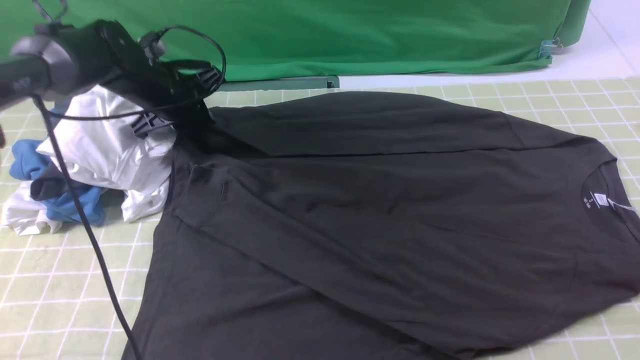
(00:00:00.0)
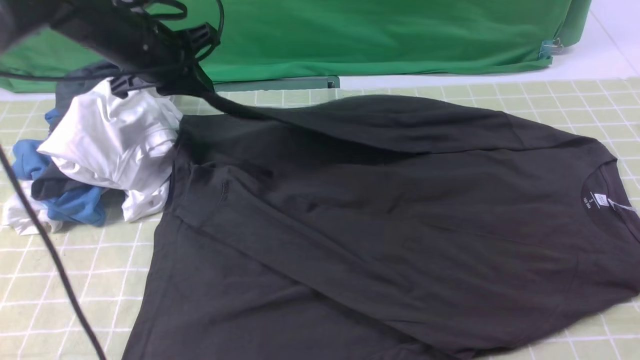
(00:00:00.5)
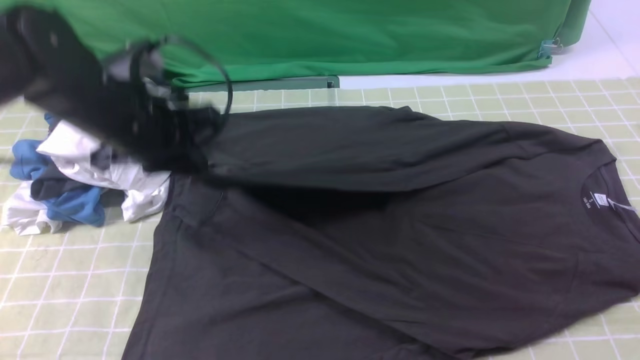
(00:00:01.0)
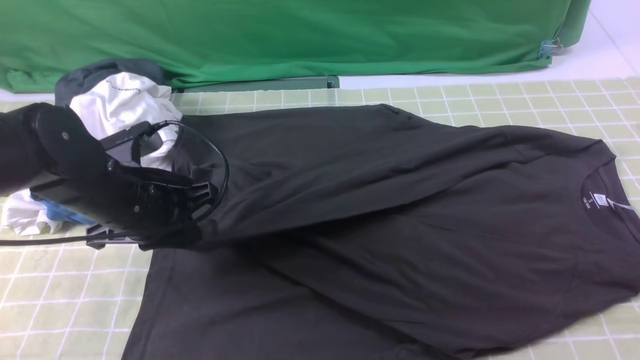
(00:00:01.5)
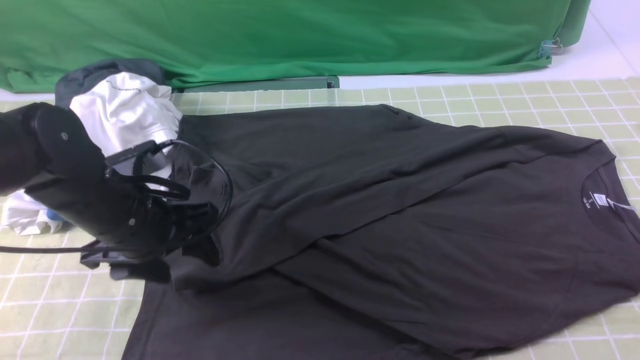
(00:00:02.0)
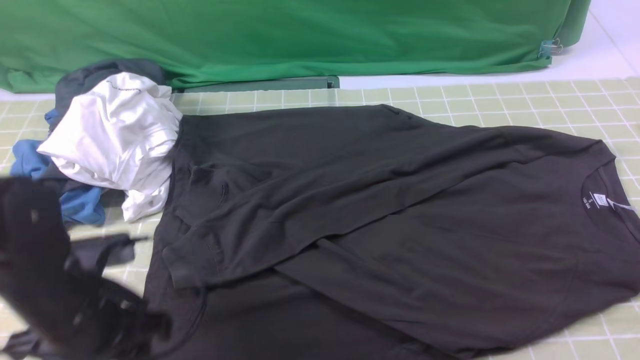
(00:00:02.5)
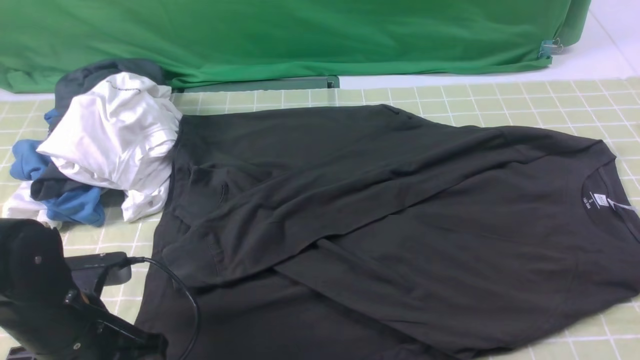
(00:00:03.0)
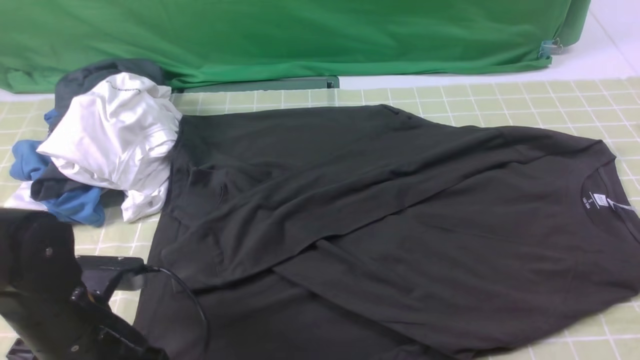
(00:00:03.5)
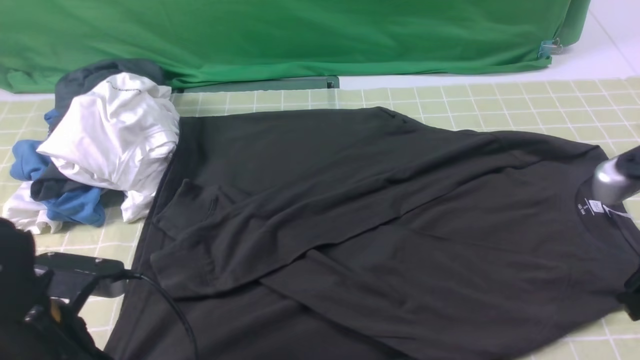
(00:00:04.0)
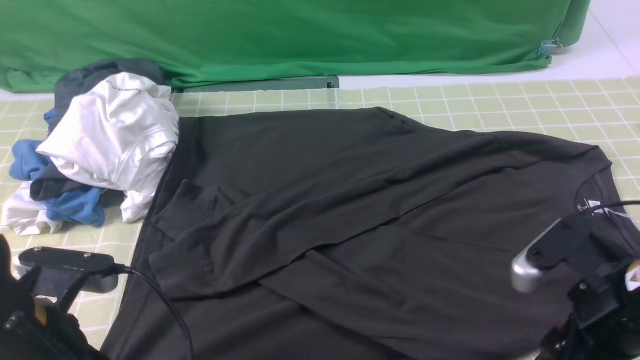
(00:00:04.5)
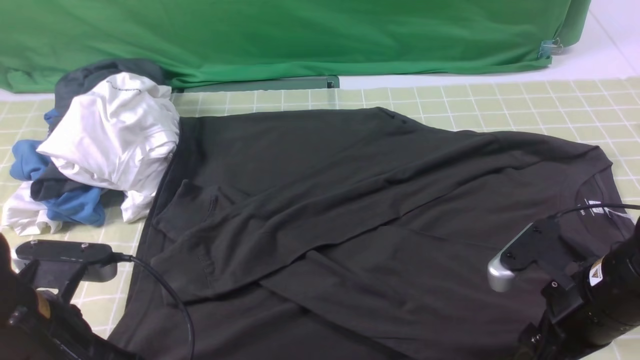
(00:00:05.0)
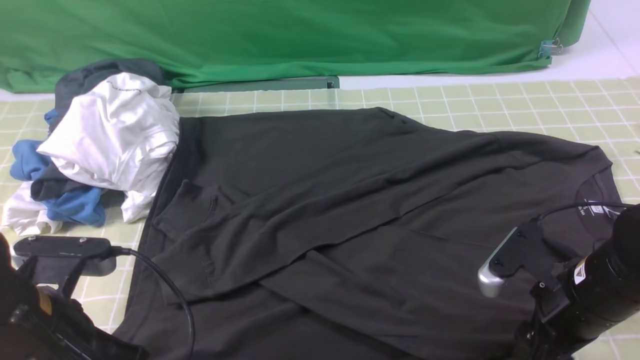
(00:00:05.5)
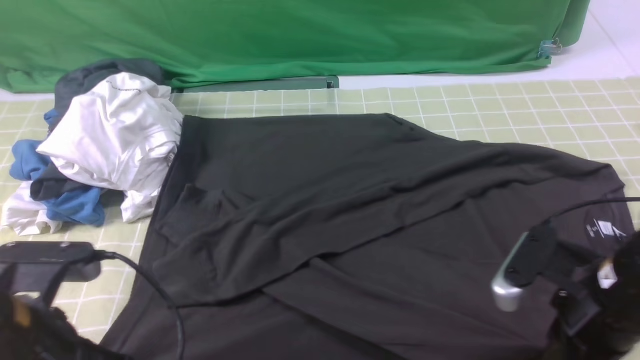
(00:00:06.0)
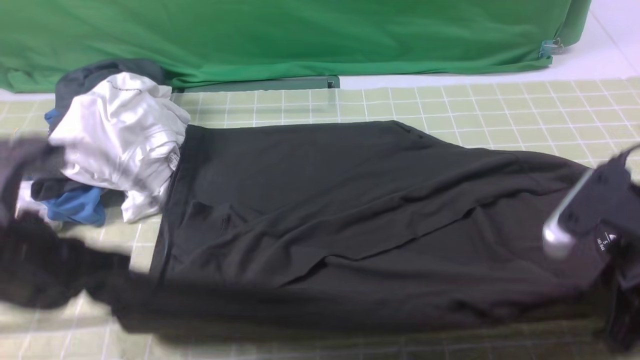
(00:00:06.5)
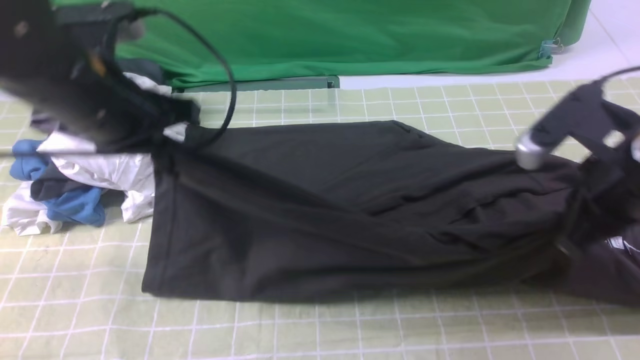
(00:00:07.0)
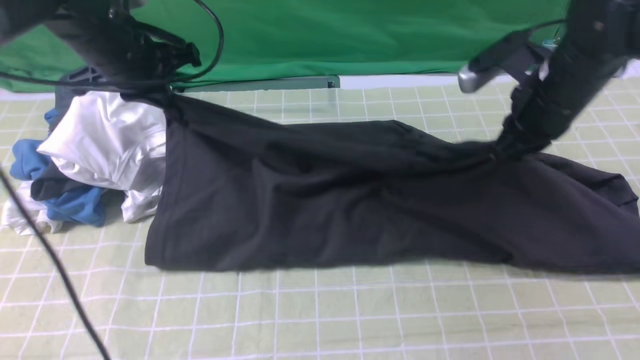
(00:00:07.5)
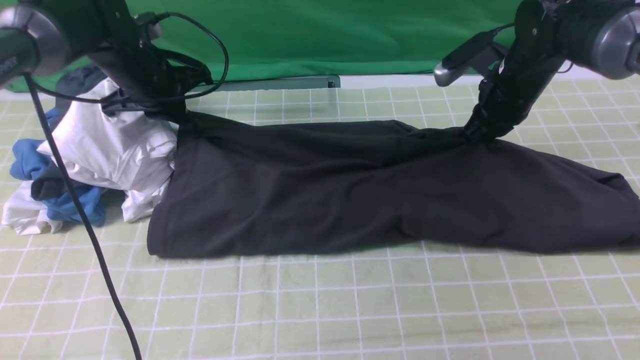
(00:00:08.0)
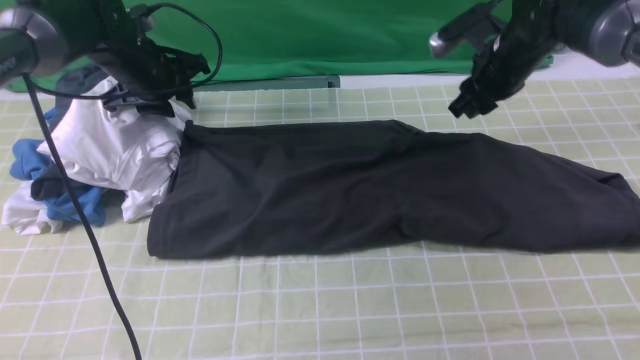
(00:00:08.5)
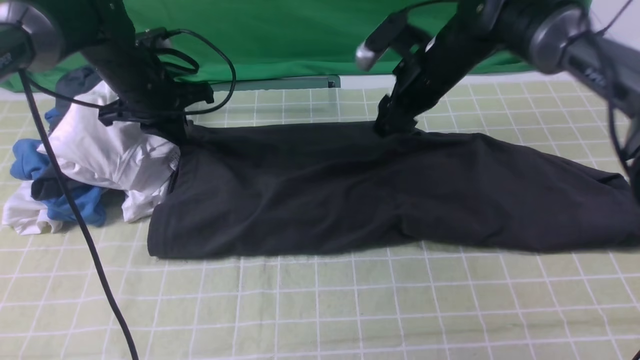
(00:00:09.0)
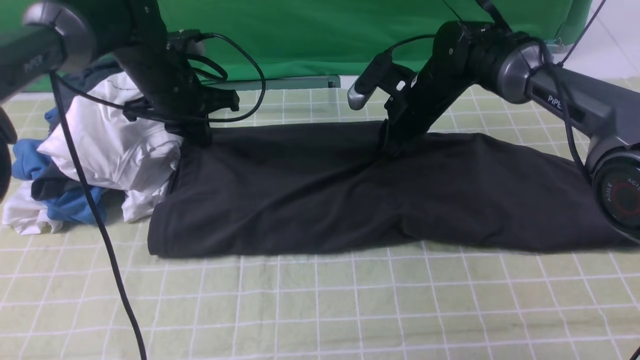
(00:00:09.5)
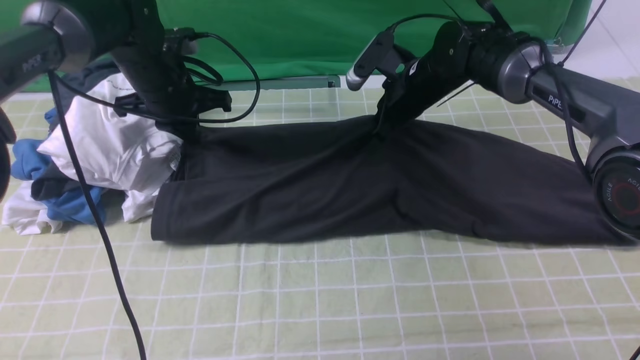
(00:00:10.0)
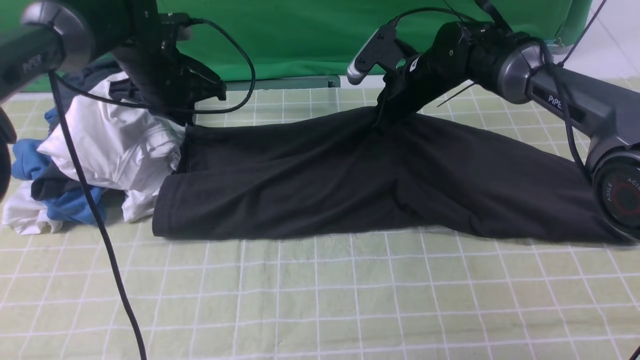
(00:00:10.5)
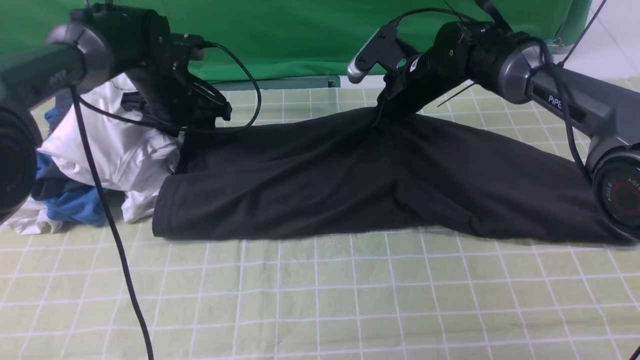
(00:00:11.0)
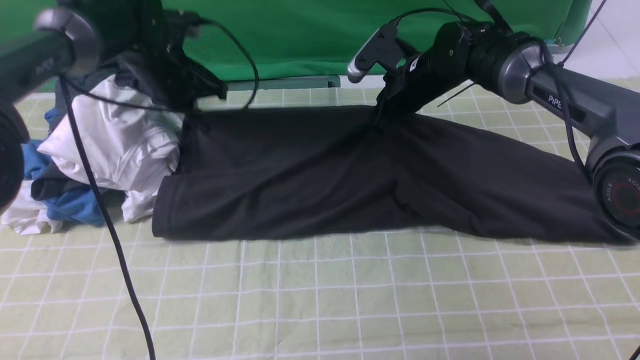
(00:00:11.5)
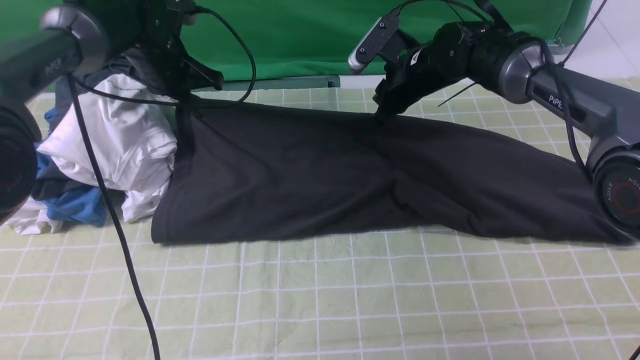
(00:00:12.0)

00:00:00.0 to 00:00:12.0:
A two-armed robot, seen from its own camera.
Step, 00:00:00.0 to 00:00:02.0: use the left arm to drag and drop the cuff onto the cuff closest to the left arm.
Step, 00:00:02.5 to 00:00:05.5: use both arms simultaneously to clamp the lower edge of the clothing fabric.
00:00:00.0 to 00:00:02.0: The left gripper shifts approximately 20 cm backward, and opens.
00:00:02.0 to 00:00:04.0: The left gripper travels backward by roughly 10 cm, and closes its fingers. The right gripper shifts by some 5 cm.
00:00:04.0 to 00:00:06.0: The right gripper moves downward, some 10 cm, and opens, then closes again.
00:00:06.0 to 00:00:08.0: Both grippers move forward, approximately 30 cm.
00:00:08.0 to 00:00:10.0: The left gripper opens, then closes once more. The right gripper shifts some 10 cm to the left, and opens and closes again.
00:00:10.0 to 00:00:12.0: The left gripper opens, then closes once more.

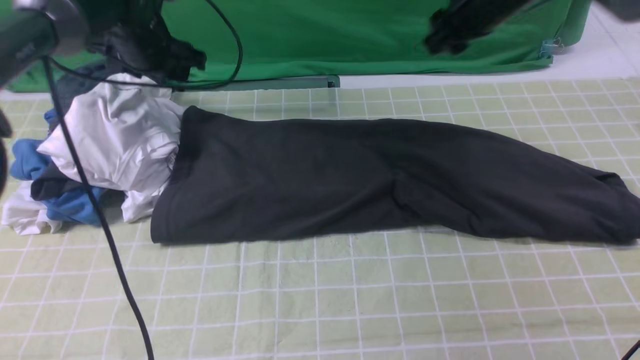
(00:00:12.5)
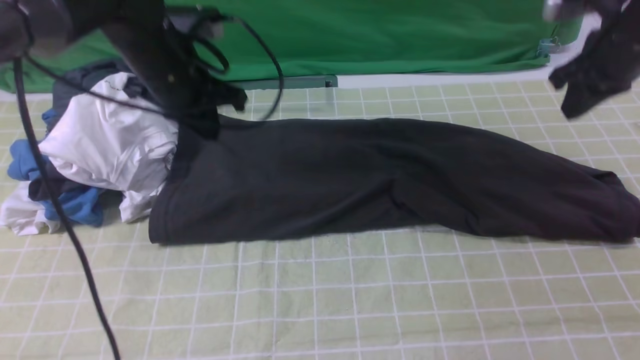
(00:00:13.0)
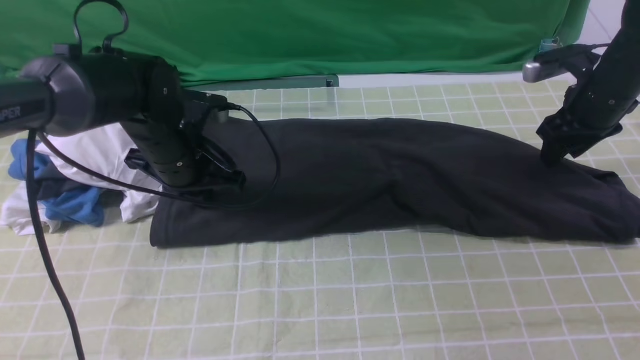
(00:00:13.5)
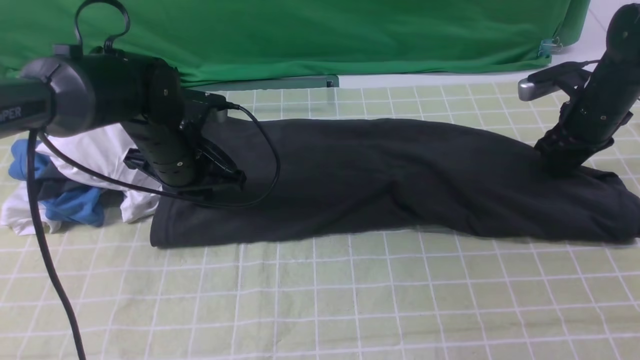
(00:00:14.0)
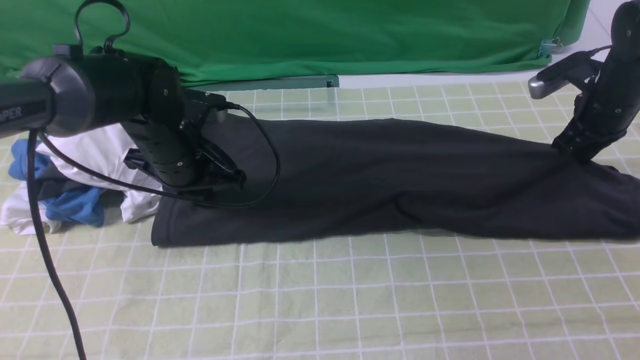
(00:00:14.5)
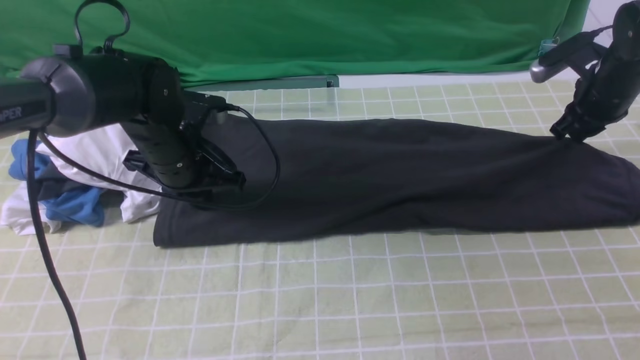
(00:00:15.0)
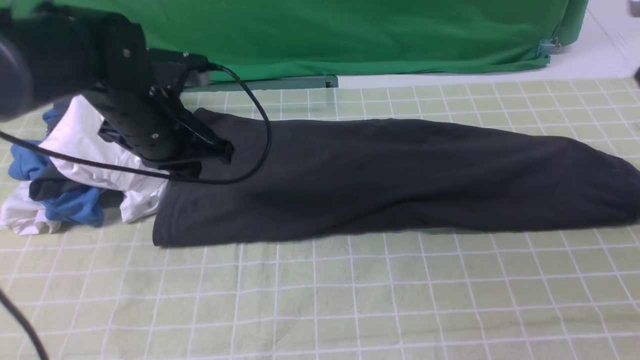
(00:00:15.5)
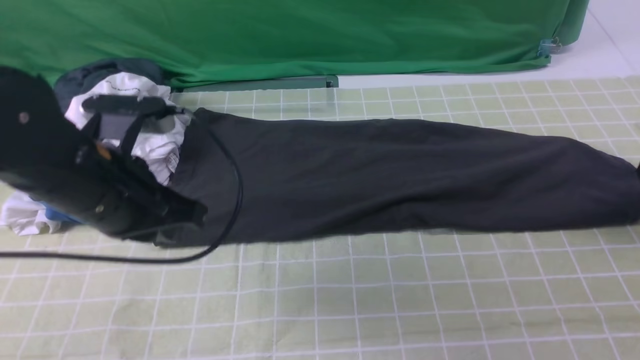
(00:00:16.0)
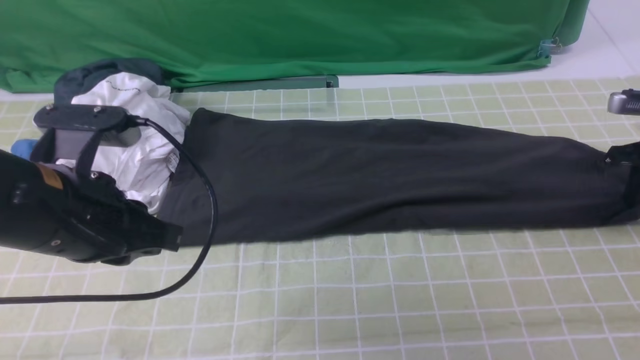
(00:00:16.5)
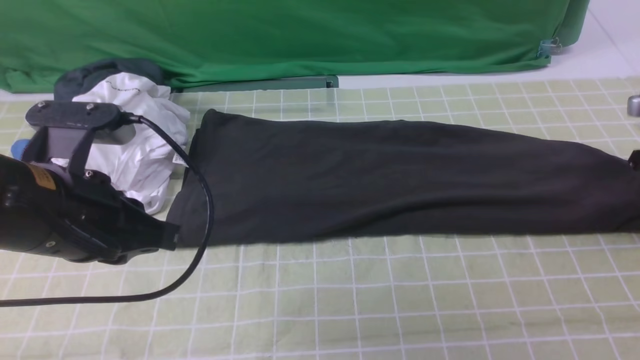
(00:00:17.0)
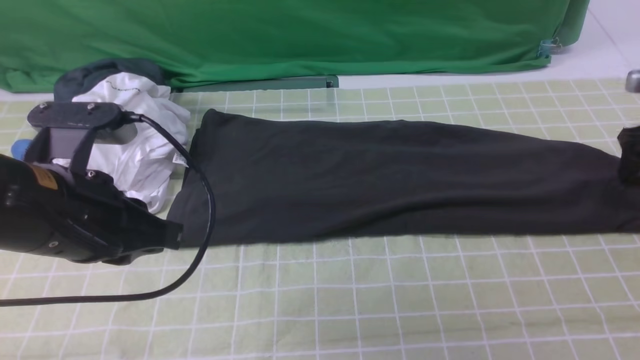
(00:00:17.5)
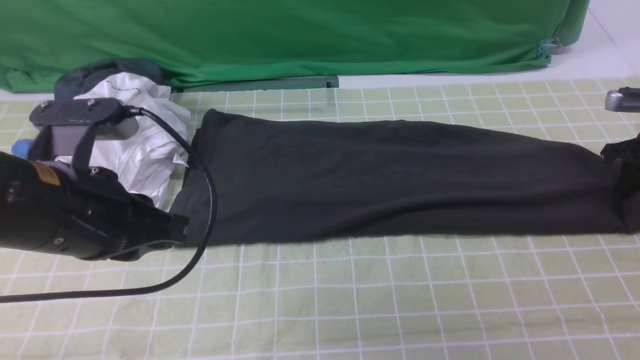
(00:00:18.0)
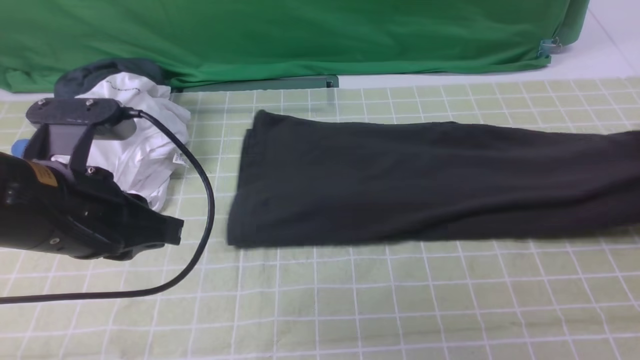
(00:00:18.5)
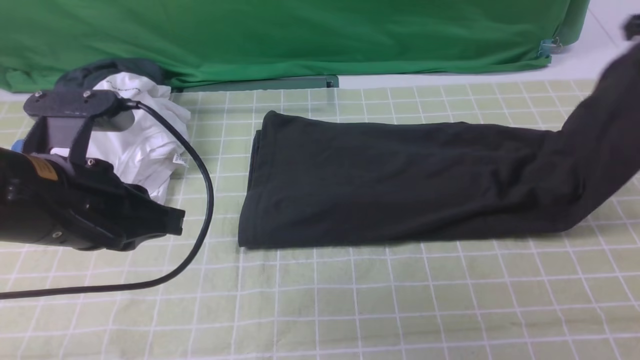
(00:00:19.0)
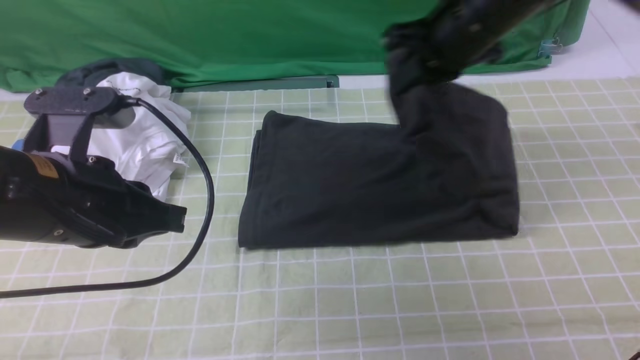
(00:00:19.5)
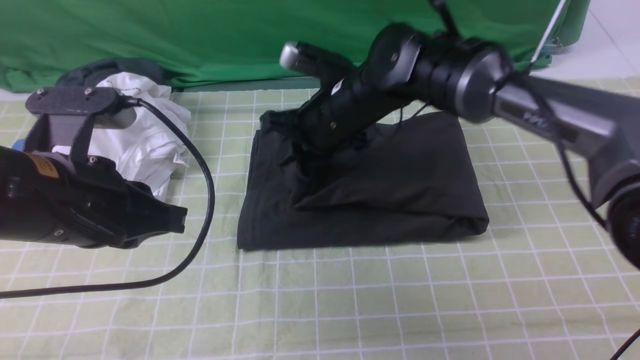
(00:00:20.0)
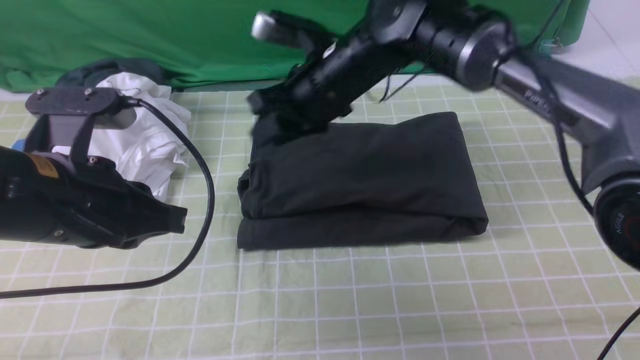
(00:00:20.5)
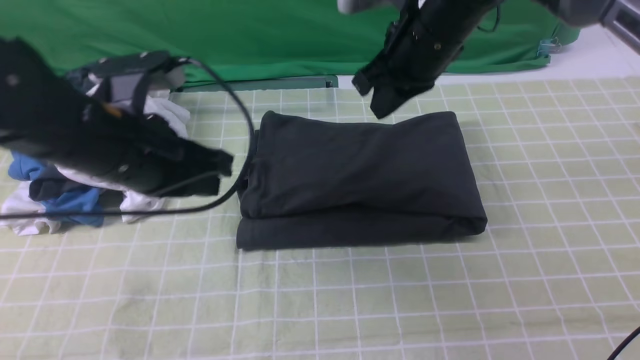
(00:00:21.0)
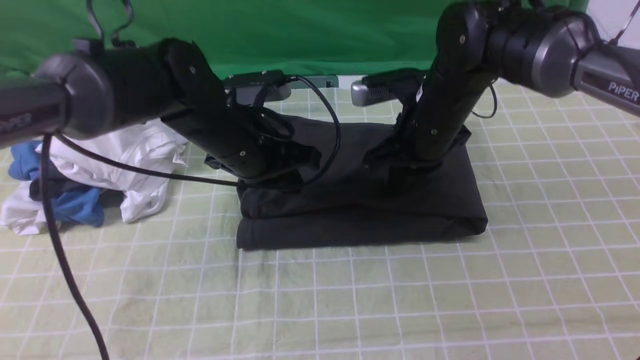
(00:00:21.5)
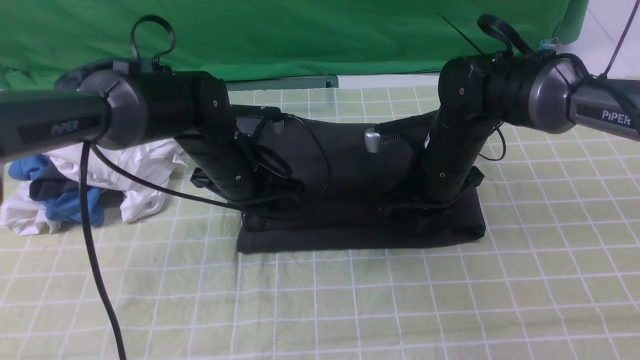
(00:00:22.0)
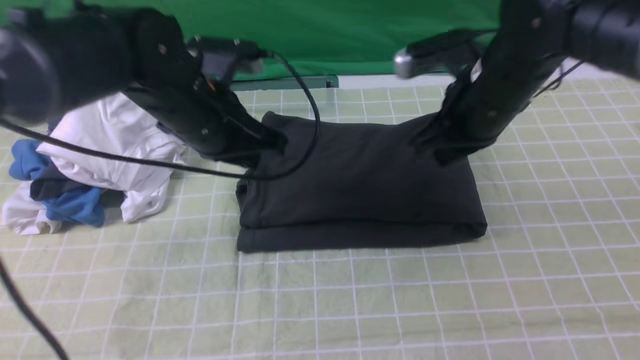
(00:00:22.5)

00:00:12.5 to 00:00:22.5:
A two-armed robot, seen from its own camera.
Step, 00:00:12.5 to 00:00:18.0: use the right arm to clamp the right edge of the fabric.
Step, 00:00:18.5 to 00:00:20.0: use the right arm to drag the right edge of the fabric to the left and folds it over the left edge.
00:00:12.5 to 00:00:14.5: The right gripper heads to the right and downward, covering some 20 cm, and closes up; the left gripper heads backward and downward, covering approximately 15 cm, and closes its fingers.
00:00:14.5 to 00:00:16.5: The left gripper is displaced backward and upward by some 20 cm. Meanwhile the right gripper shifts about 10 cm to the right, moves approximately 10 cm upward and comes back, and opens, then closes again.
00:00:16.5 to 00:00:18.5: The right gripper opens and closes again.
00:00:18.5 to 00:00:20.5: The right gripper travels to the left by roughly 40 cm, and opens its fingers.
00:00:20.5 to 00:00:22.5: The left gripper goes roughly 15 cm forward and to the right. Meanwhile the right gripper shifts about 15 cm to the right, and closes its fingers.
